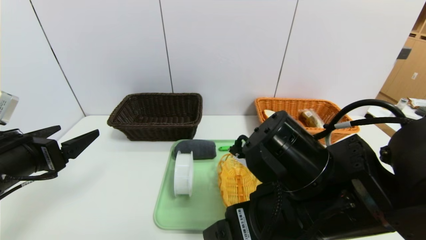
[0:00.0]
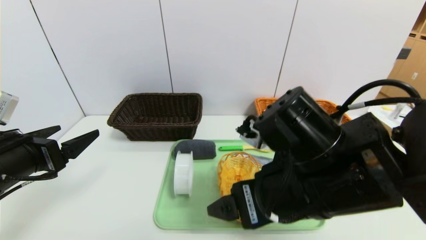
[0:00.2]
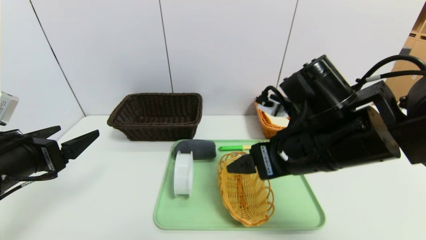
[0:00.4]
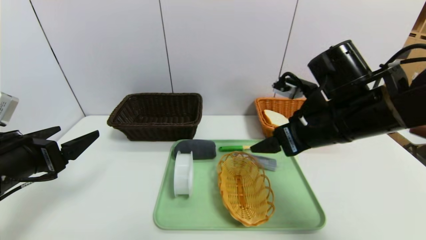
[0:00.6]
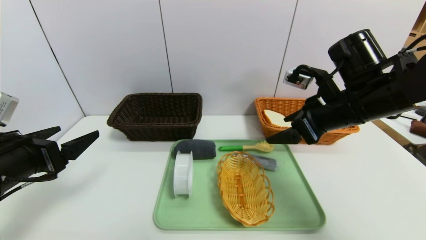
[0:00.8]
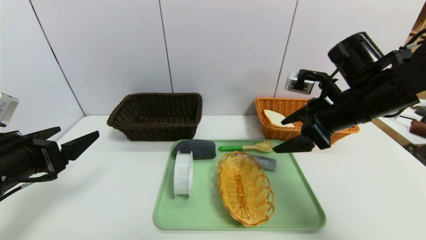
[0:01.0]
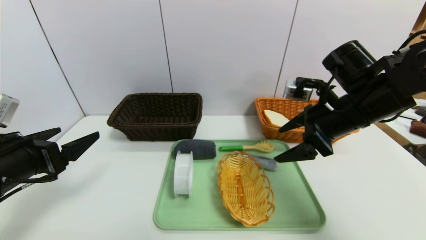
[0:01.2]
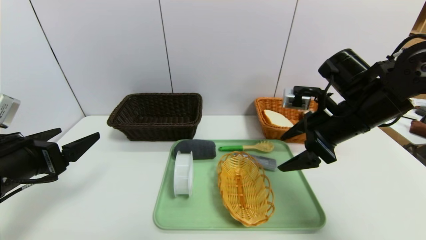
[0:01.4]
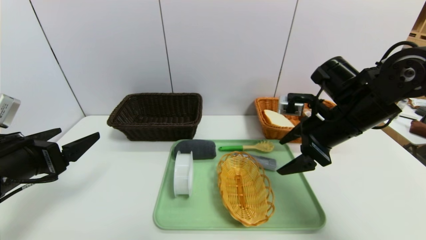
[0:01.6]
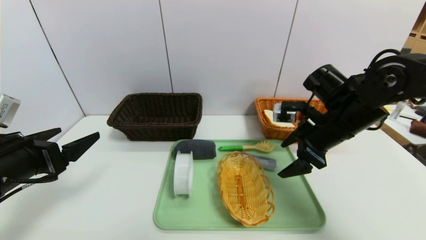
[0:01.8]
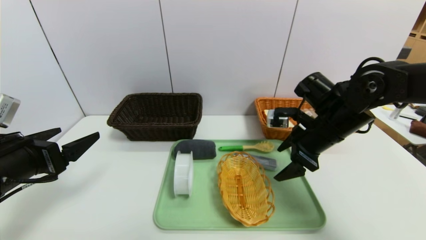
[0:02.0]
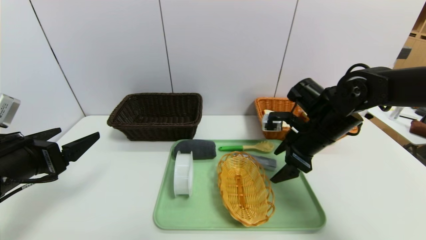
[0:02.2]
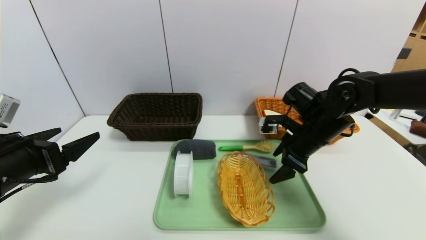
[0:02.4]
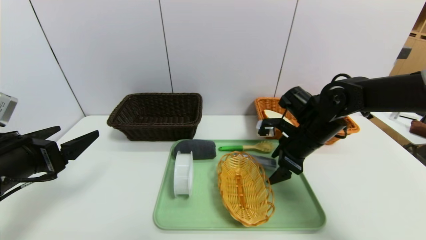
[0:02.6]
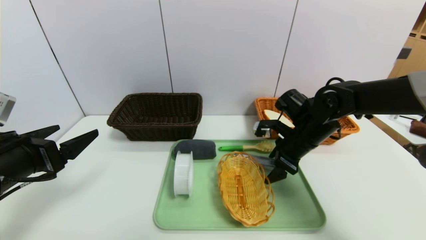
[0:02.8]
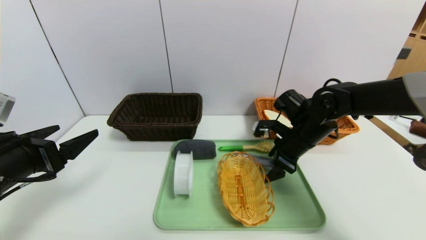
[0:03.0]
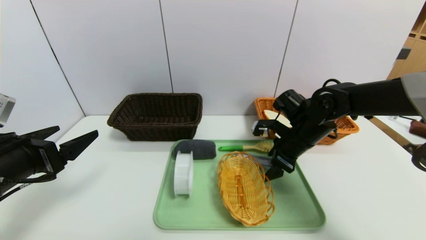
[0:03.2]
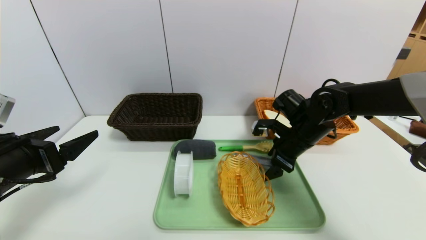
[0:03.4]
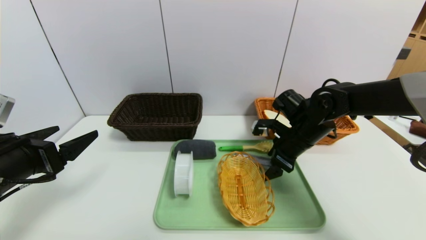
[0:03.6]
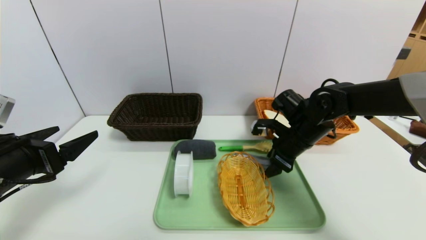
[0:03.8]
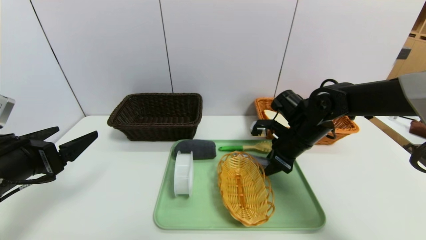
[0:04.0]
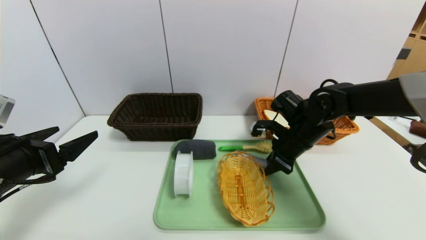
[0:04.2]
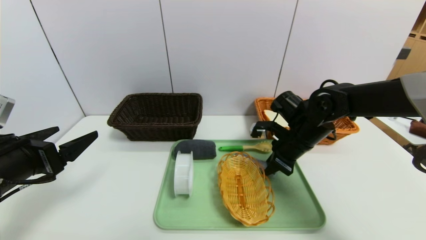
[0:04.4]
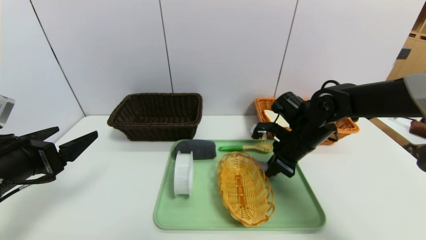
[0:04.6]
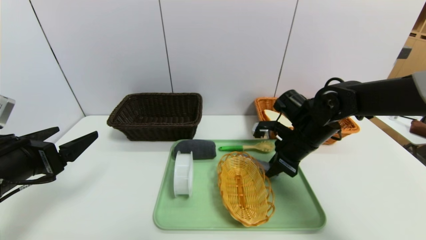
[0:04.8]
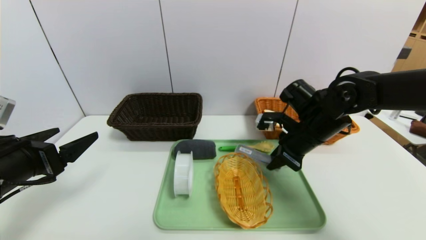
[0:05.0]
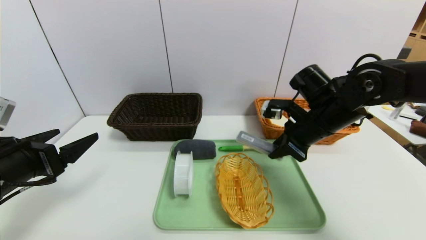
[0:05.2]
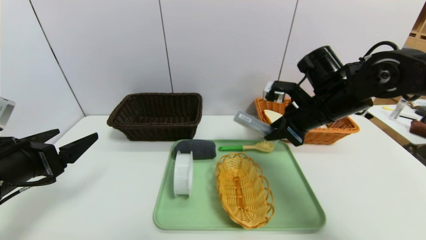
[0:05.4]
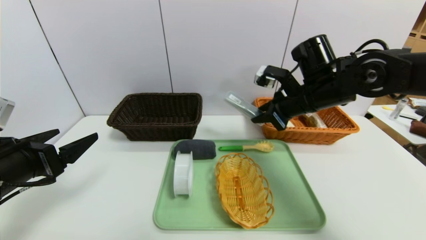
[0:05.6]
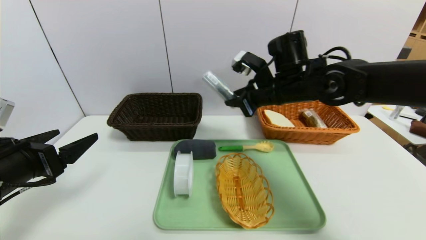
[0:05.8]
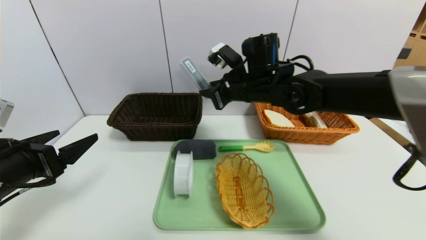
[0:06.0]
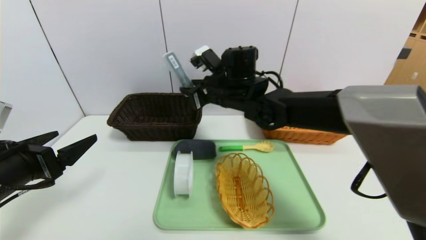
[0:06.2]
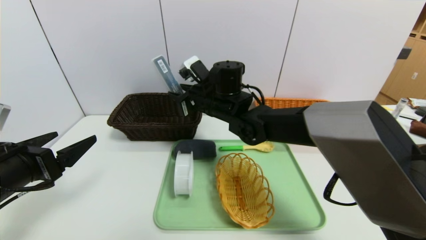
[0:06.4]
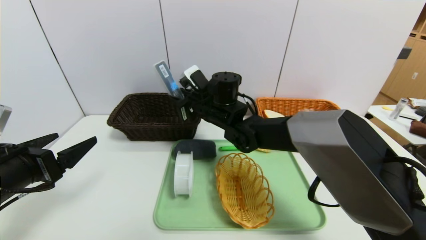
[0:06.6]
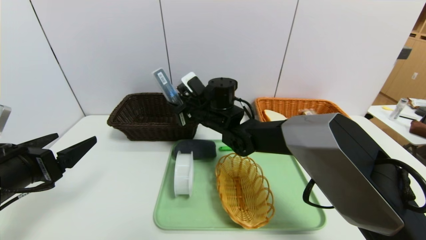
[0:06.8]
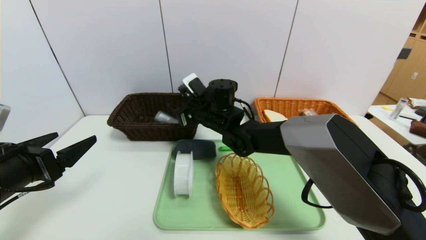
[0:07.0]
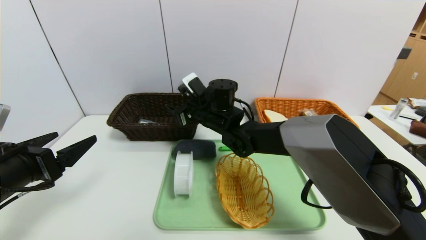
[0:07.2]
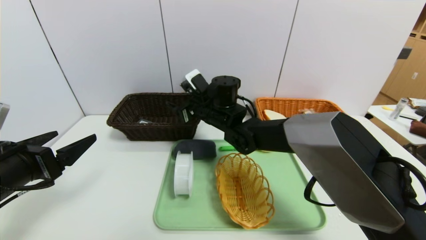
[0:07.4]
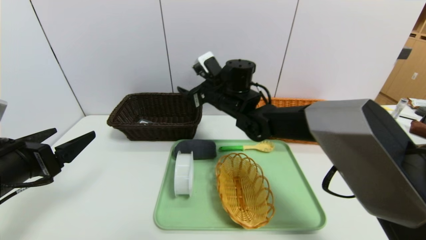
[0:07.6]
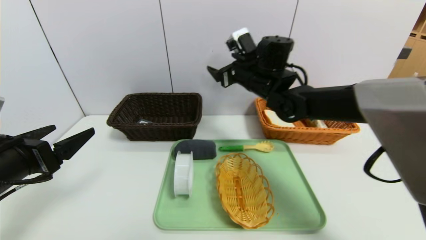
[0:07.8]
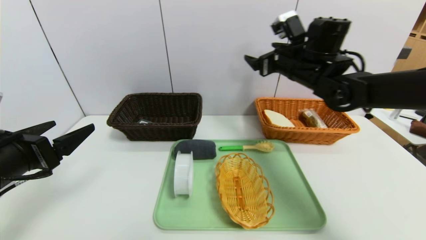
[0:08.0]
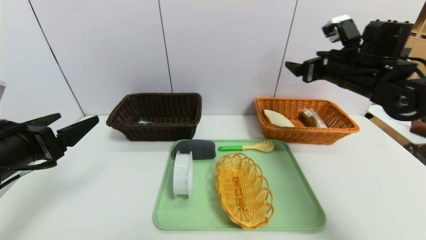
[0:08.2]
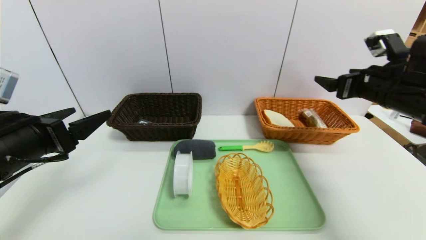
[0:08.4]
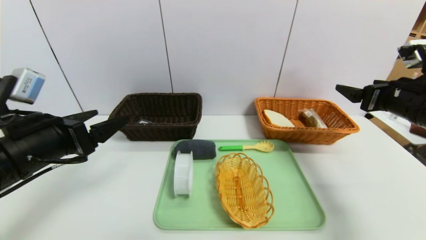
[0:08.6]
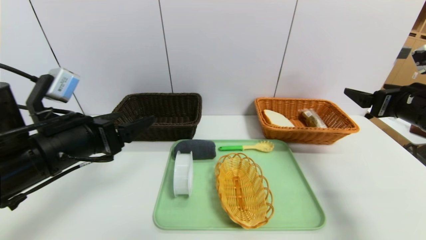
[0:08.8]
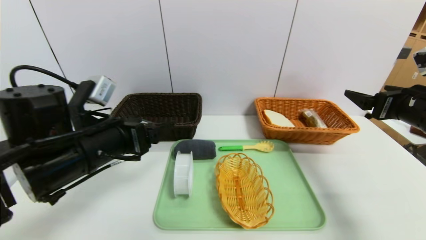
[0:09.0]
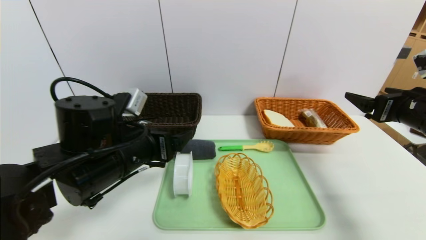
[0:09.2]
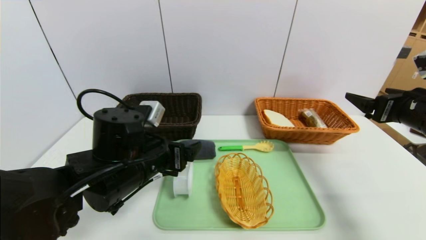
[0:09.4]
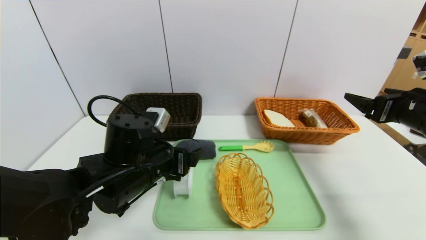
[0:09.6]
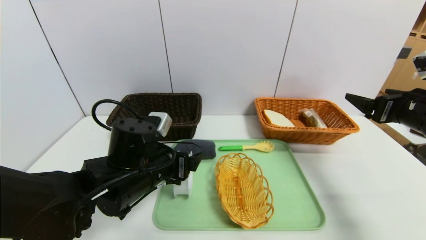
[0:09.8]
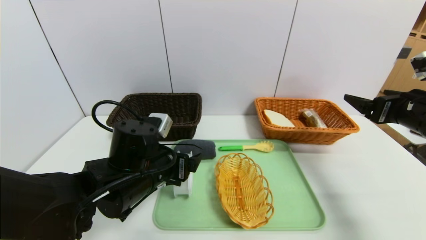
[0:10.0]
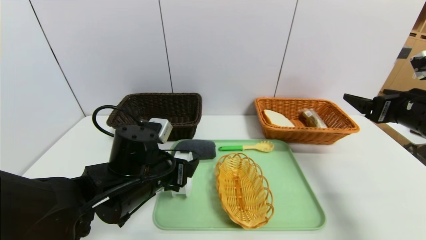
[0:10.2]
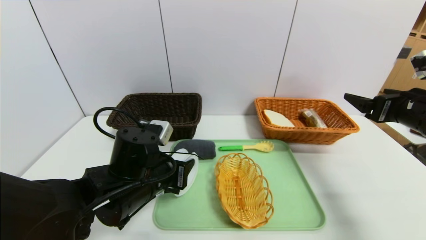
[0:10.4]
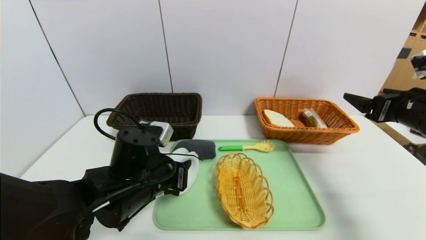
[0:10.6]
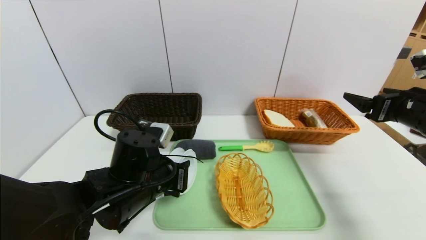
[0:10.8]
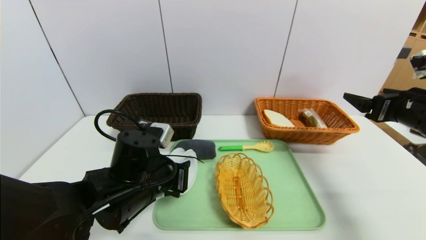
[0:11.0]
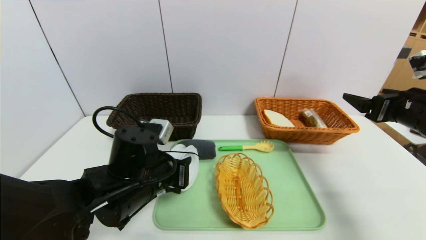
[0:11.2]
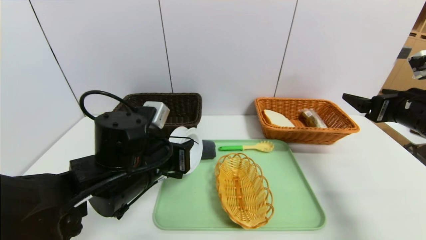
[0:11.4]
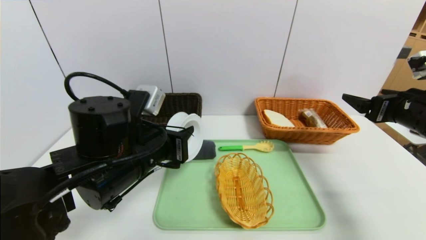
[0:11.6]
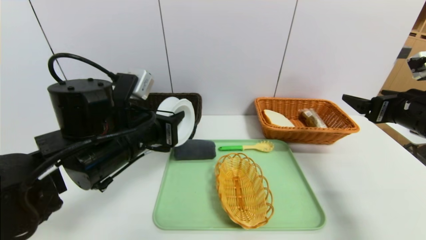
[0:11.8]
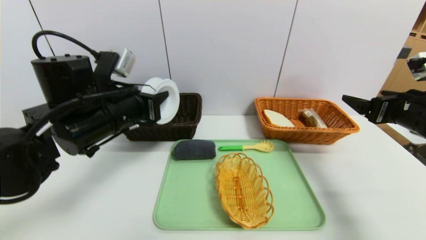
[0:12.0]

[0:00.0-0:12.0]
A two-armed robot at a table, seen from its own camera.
Task of the whole recording: place the food in the right basket with the right gripper, and place the non food items in the left basket with the left gripper.
0:00.0 to 0:01.6: The right gripper heads forward and to the right, covering some 20 cm.
0:01.6 to 0:03.0: The right gripper is displaced downward and forward by some 10 cm.
0:03.0 to 0:04.4: The right gripper closes.
0:04.4 to 0:06.0: The right gripper heads to the left and upward, covering some 15 cm.
0:06.0 to 0:07.6: The right gripper opens up.
0:07.6 to 0:09.0: The left gripper goes approximately 15 cm to the right and forward, while the right gripper heads to the right and backward, covering about 35 cm.
0:09.0 to 0:10.4: The left gripper heads downward and to the right, covering some 10 cm, and closes its fingers.
0:10.4 to 0:12.0: The left gripper goes approximately 15 cm upward, to the left and forward.

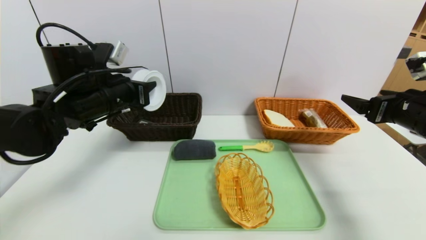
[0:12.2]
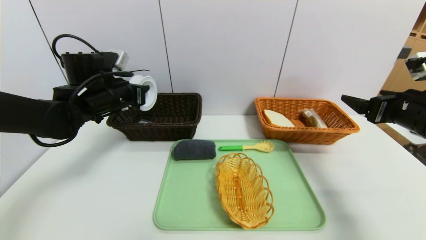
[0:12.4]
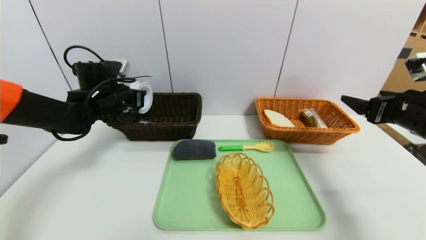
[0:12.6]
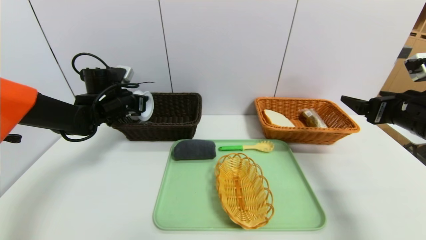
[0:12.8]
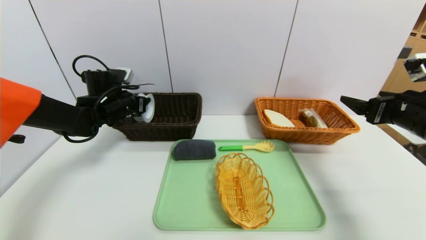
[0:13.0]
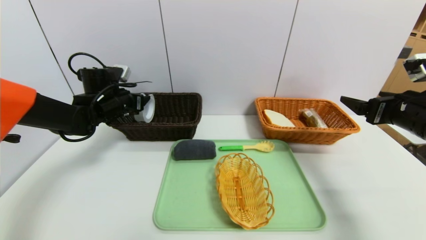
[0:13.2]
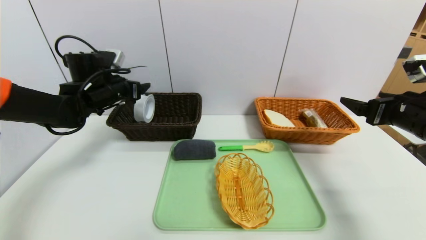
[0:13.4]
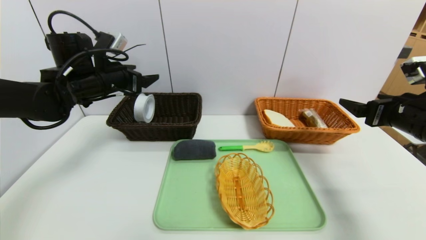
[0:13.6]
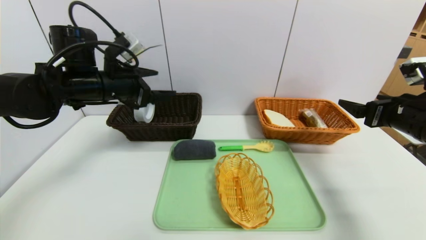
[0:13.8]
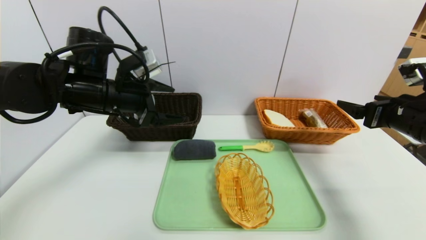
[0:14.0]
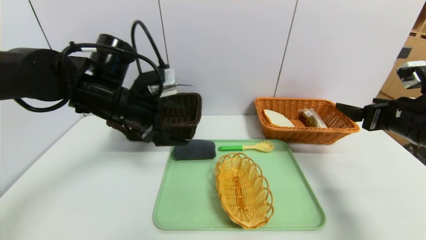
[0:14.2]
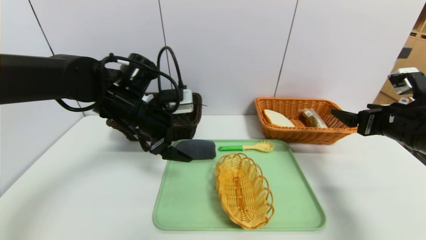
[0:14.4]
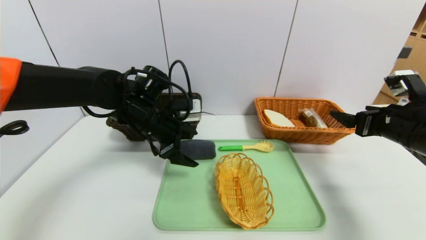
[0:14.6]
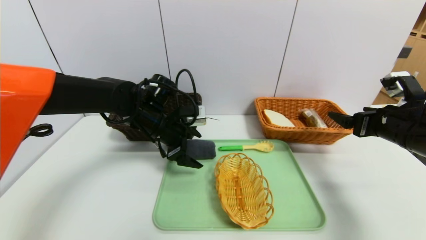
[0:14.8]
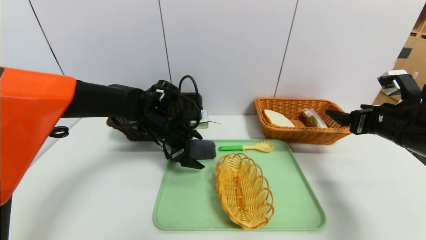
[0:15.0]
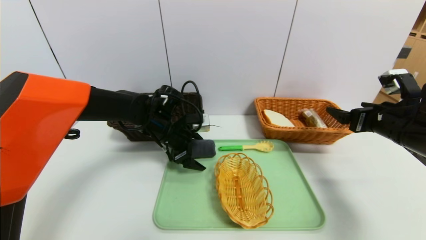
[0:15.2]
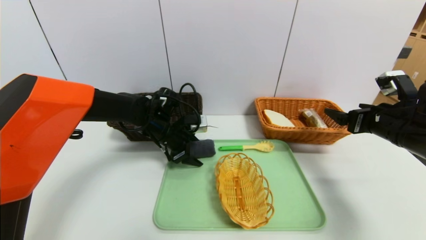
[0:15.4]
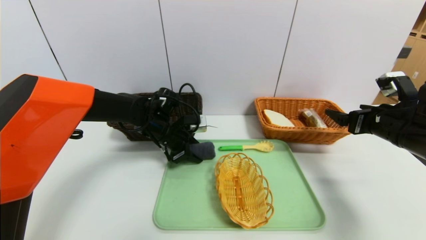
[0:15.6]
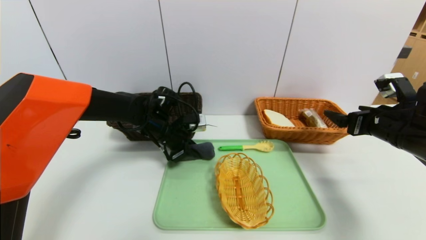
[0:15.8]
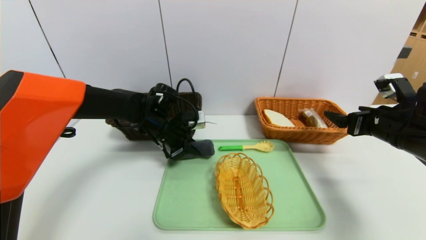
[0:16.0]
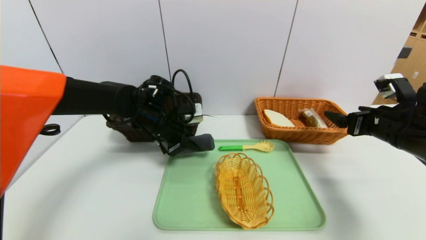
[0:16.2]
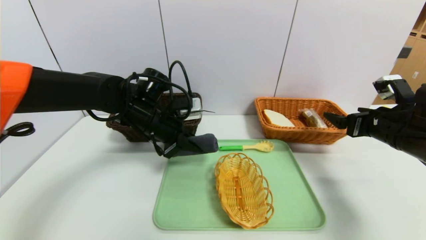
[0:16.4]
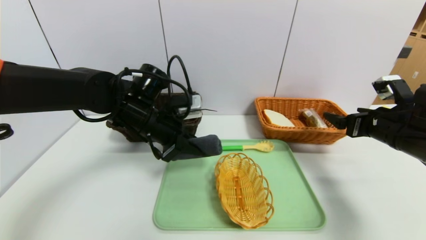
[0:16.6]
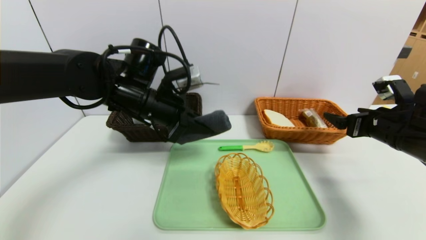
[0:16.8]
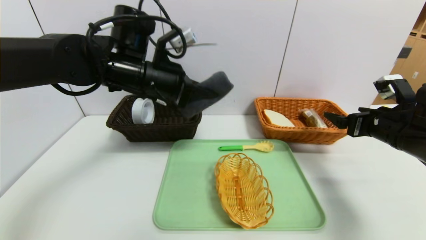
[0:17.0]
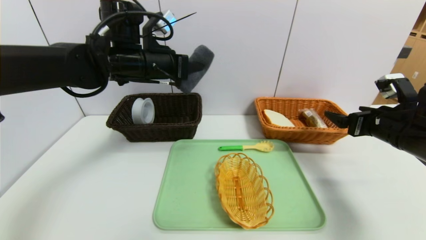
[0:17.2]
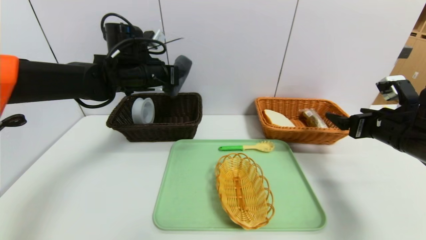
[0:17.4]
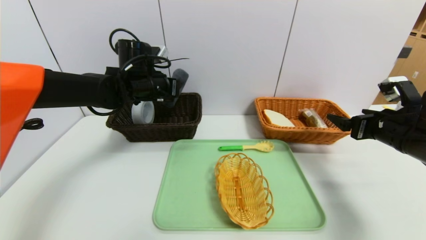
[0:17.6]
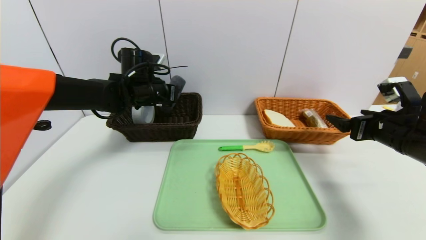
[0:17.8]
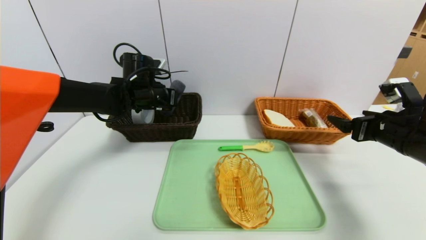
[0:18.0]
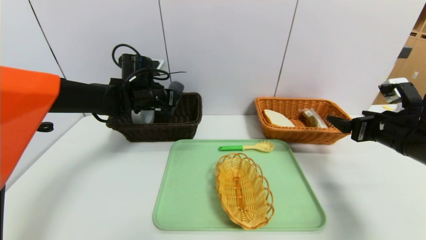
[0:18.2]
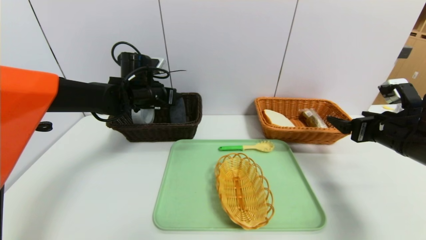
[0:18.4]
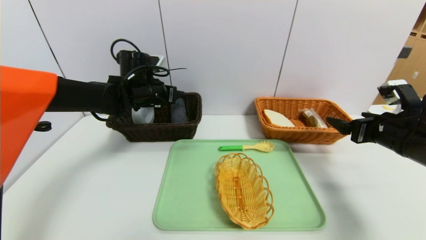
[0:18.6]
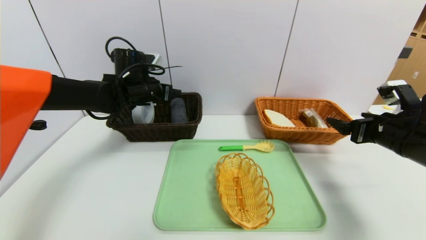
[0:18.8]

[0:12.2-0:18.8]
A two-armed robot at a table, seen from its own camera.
Task of the whole recording: place the food in the right basket with the right gripper, and place the non food items in the left basket with the left gripper.
0:12.2 to 0:13.8: The left gripper travels forward and back again, roughly 10 cm each way, and opens.
0:13.8 to 0:15.4: The left gripper shifts roughly 15 cm downward, to the right and forward.
0:15.4 to 0:17.2: The left gripper moves upward, approximately 15 cm, and closes up.
0:17.2 to 0:18.8: The left gripper heads downward and forward, covering about 10 cm, and opens.
